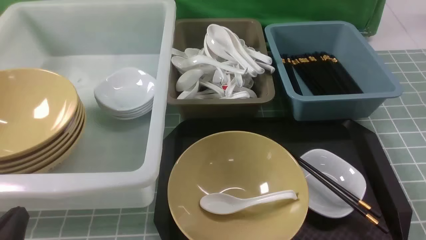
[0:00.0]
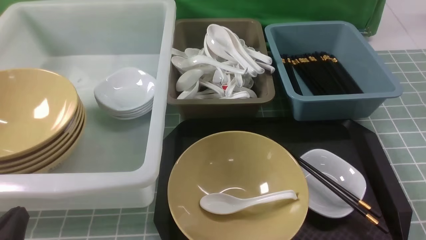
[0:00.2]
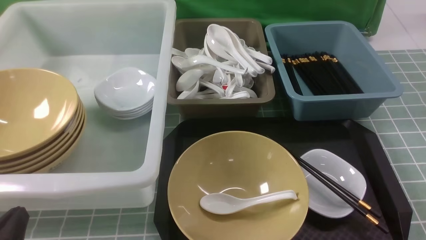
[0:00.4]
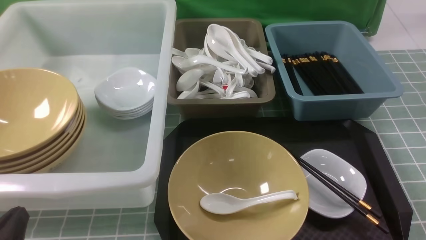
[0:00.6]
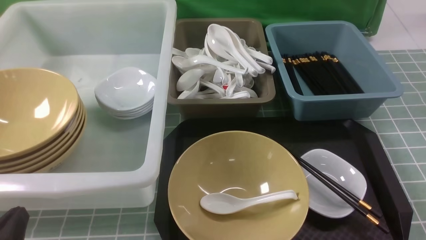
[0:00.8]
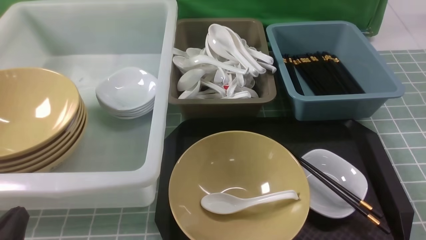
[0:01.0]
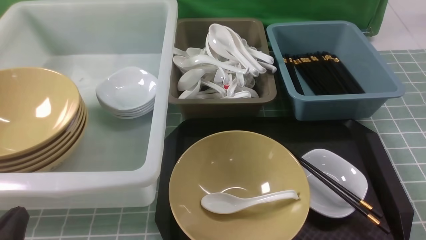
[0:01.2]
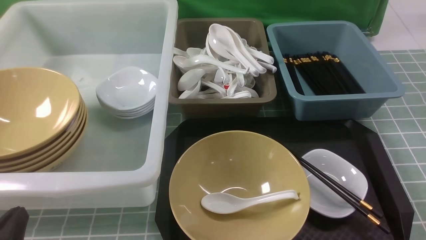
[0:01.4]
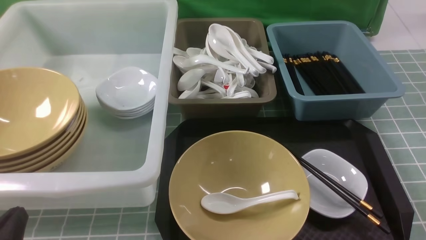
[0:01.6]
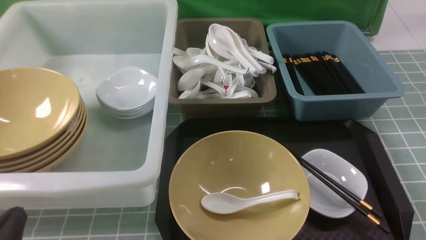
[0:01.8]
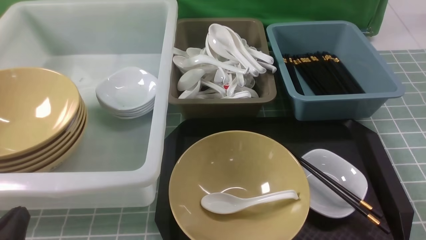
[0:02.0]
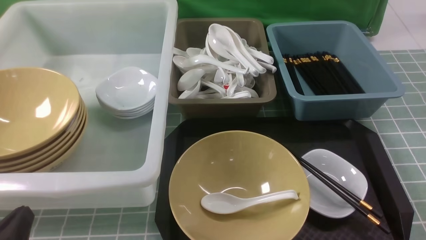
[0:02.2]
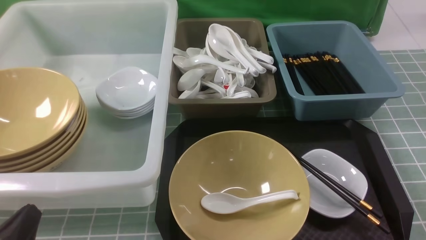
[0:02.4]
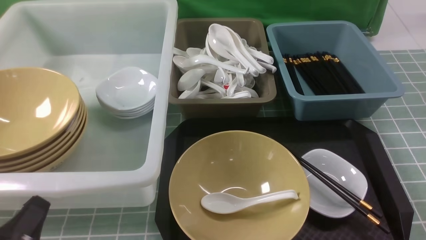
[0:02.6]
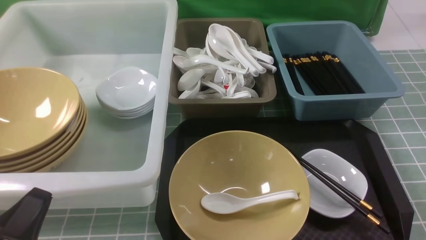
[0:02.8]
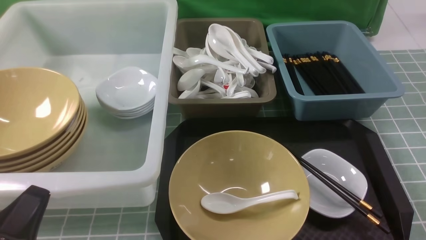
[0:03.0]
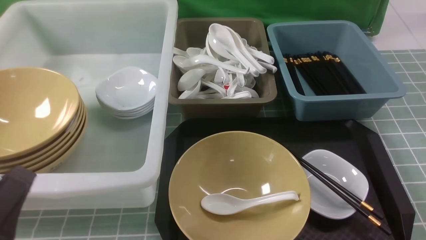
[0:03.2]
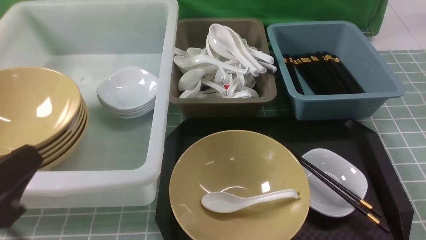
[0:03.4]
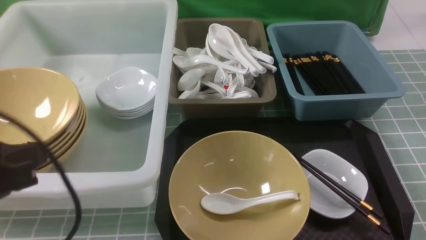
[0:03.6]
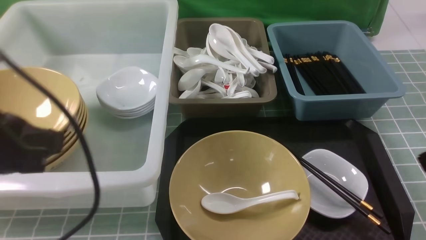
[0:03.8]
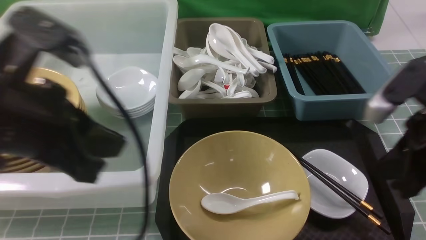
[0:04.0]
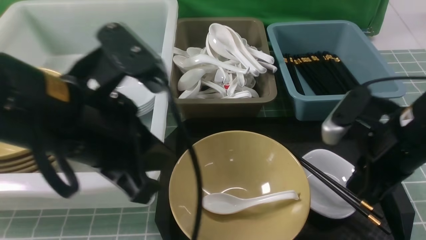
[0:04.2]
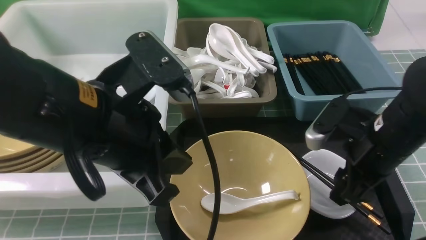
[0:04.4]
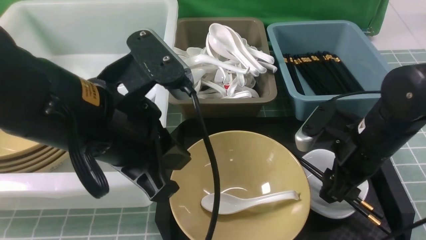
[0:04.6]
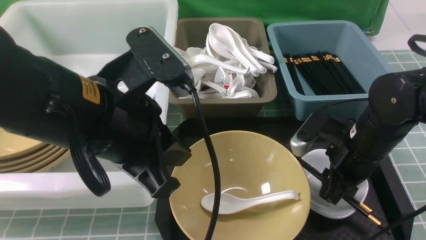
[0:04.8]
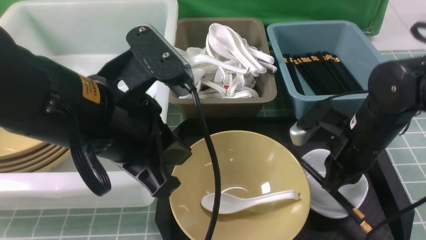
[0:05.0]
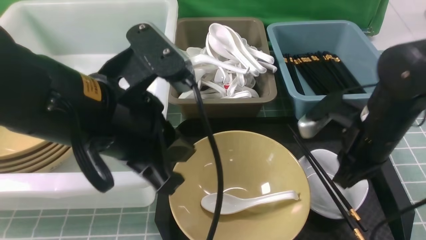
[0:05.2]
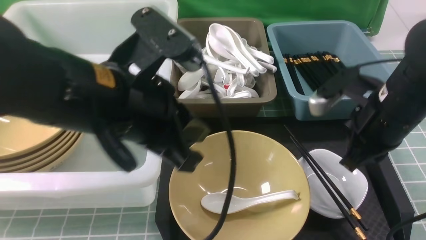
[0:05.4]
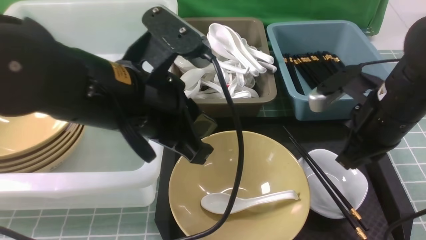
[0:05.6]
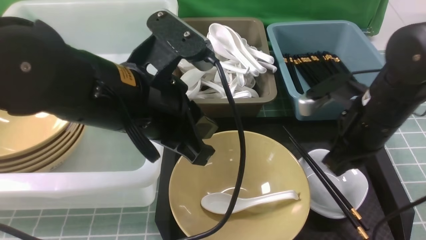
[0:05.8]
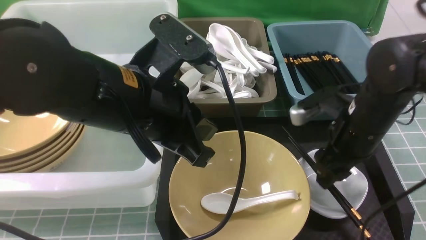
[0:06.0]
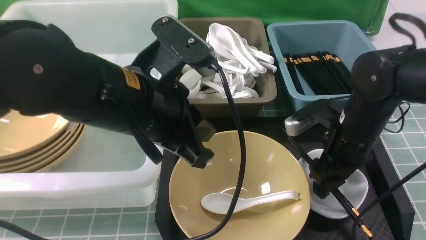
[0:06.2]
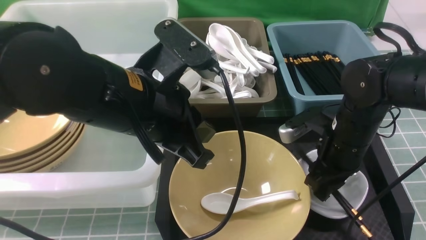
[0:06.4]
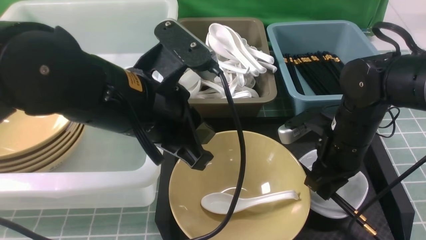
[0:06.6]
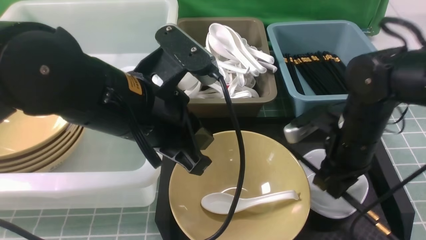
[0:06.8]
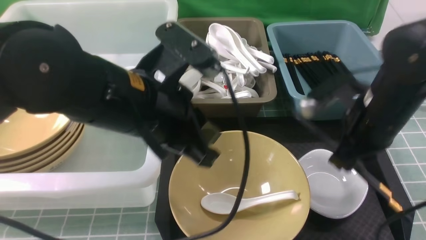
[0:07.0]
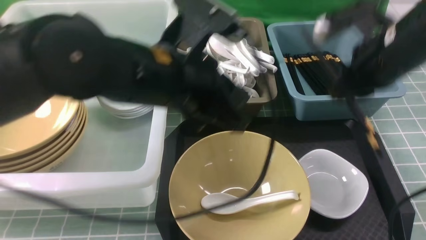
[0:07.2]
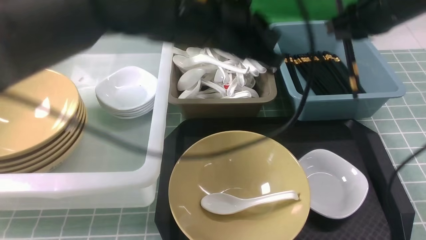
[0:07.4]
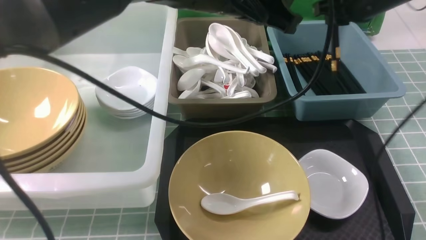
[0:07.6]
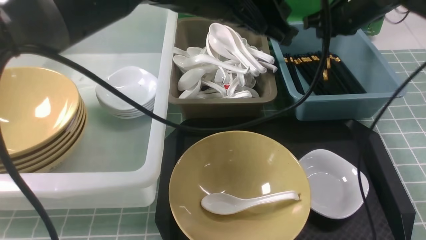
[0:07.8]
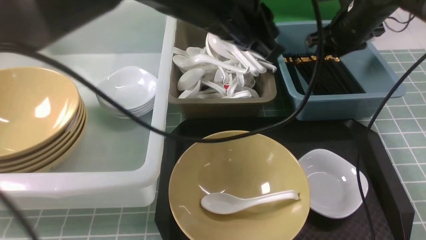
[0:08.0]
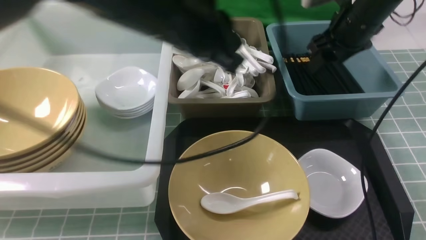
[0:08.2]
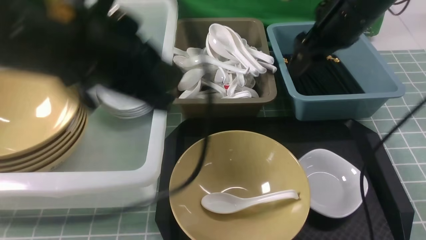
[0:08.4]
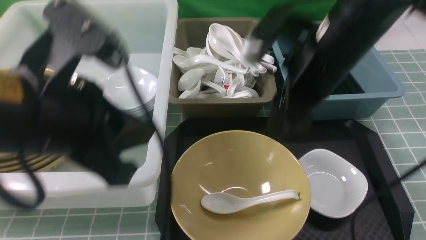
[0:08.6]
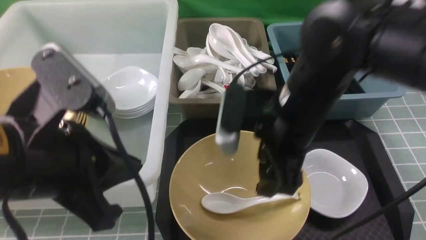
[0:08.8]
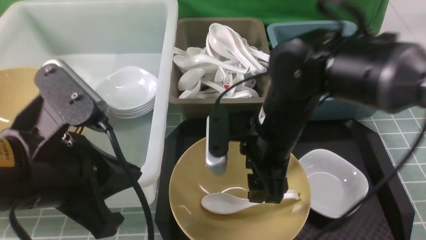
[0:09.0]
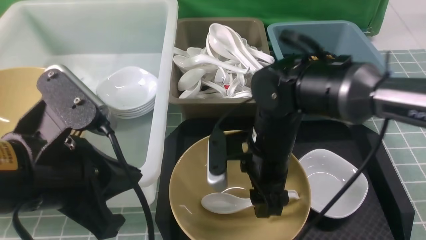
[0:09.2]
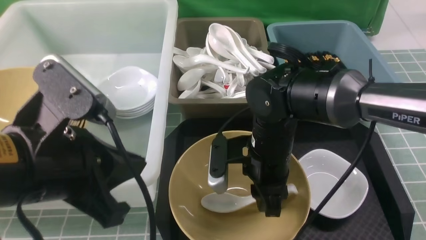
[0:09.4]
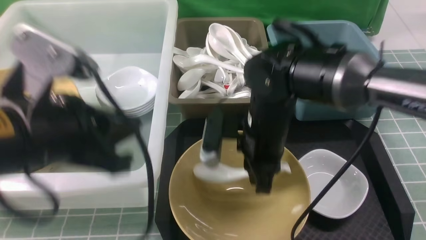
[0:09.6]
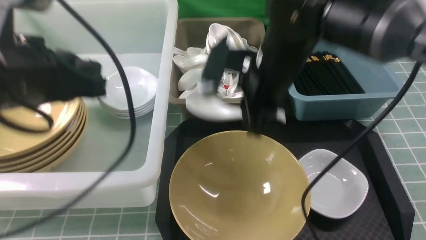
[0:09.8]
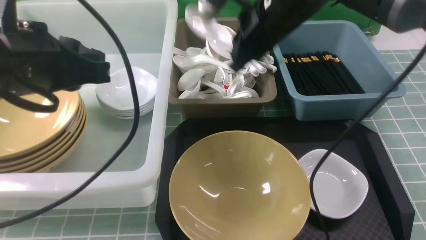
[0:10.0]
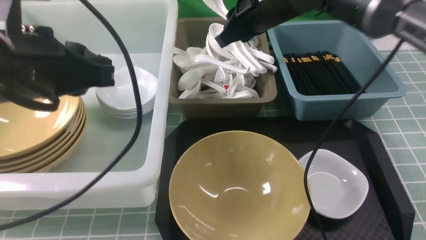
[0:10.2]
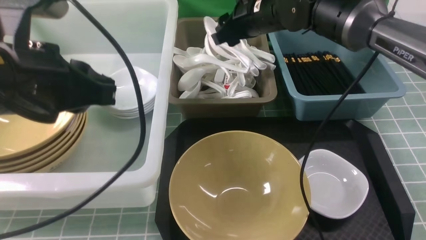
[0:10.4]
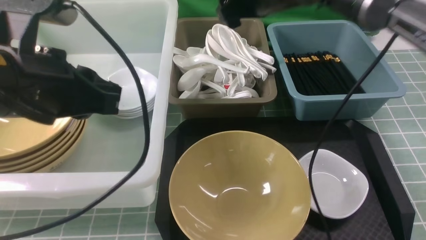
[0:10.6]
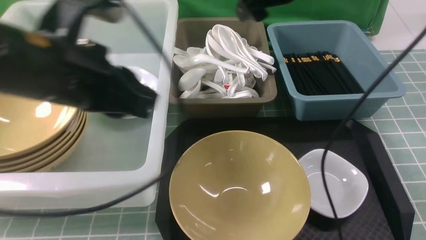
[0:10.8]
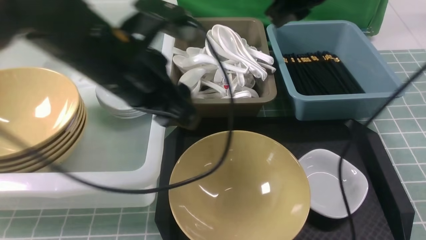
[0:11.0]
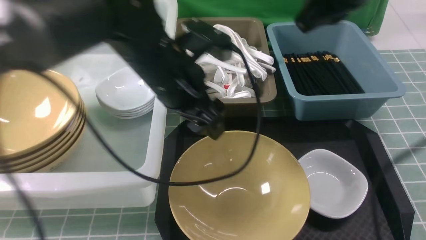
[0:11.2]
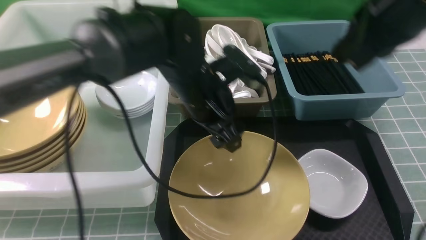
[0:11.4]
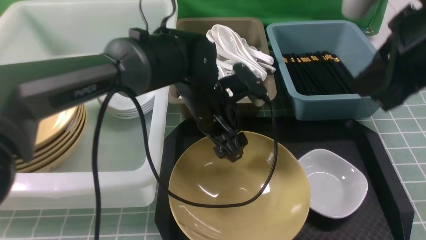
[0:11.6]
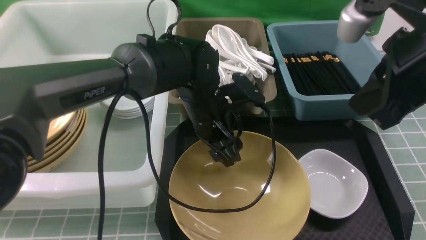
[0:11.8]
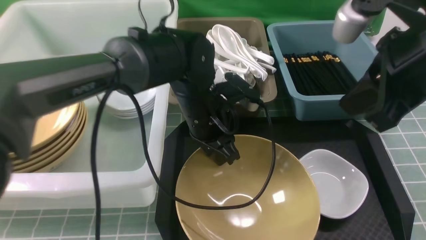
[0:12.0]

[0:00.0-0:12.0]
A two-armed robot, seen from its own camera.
Task of the whole recording: on blue table put chopsticks spoon bowls plates into blue grey white boxes.
Step, 0:00.0 to 0:07.0: use the right arm to grab the chopsticks.
Step, 0:07.2 to 0:08.2: use the right arm to put the chopsticks into the small storage box on the right.
Step, 0:08.4 to 0:09.6: use the right arm to grab the soup spoon in the middle.
Step, 0:09.8 to 0:10.6: use the right arm to put the soup spoon into the small storage box in the middle.
0:00.0 to 0:01.6: Both grippers stay about where they are.
0:03.0 to 0:04.4: The right gripper heads forward and to the left, covering roughly 25 cm, and opens up; the left gripper moves upward, to the right and forward, approximately 20 cm.
0:04.4 to 0:06.0: The right gripper closes, then reopens.
0:06.0 to 0:07.6: The right gripper travels forward and upward by about 20 cm, and closes up. Meanwhile the left gripper is displaced forward, to the right and upward by some 15 cm.
0:07.6 to 0:09.0: The left gripper moves backward and to the left, about 25 cm. Meanwhile the right gripper travels backward, to the left and downward by some 25 cm, and opens its fingers.
0:09.0 to 0:10.4: The left gripper travels forward by approximately 5 cm. The right gripper travels forward and upward by about 20 cm, and closes, then reopens.
0:10.4 to 0:12.0: The left gripper shifts about 25 cm to the right, downward and forward, and opens, then closes again, while the right gripper goes about 25 cm backward and to the right, and closes its fingers.

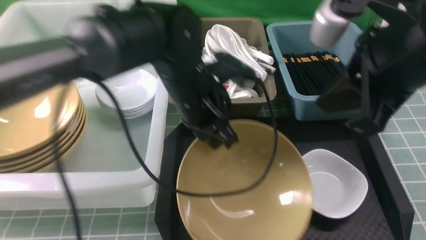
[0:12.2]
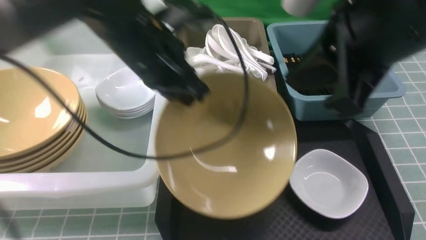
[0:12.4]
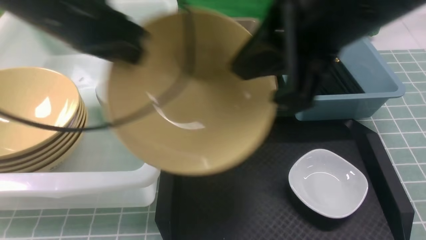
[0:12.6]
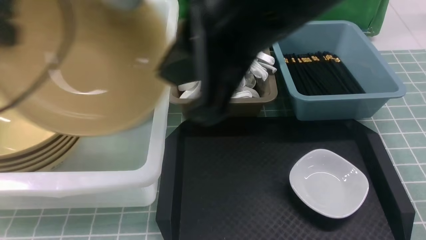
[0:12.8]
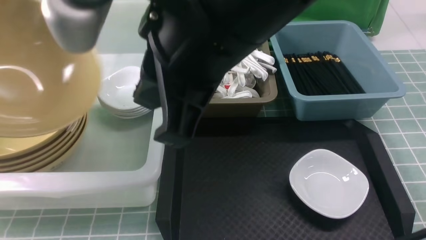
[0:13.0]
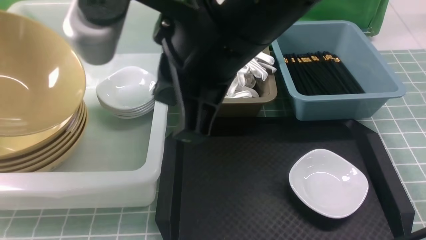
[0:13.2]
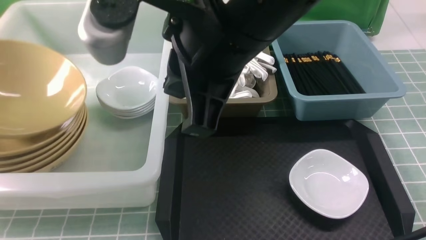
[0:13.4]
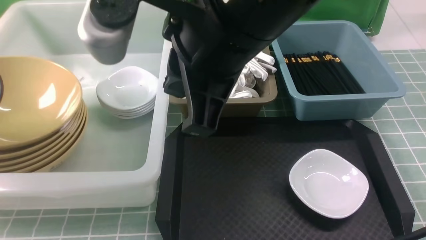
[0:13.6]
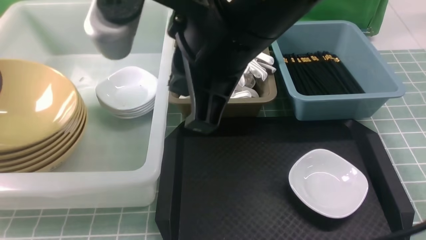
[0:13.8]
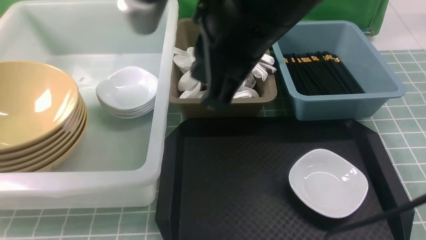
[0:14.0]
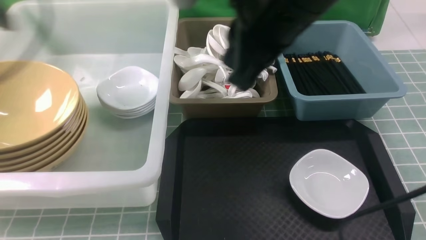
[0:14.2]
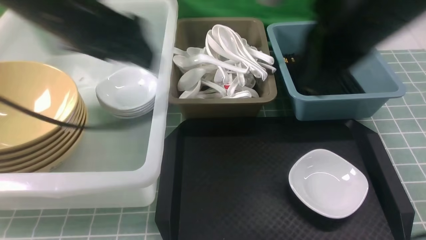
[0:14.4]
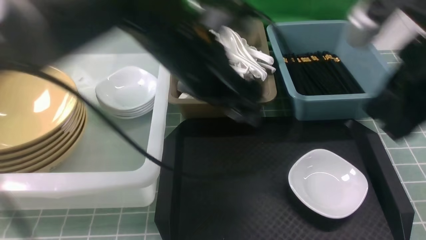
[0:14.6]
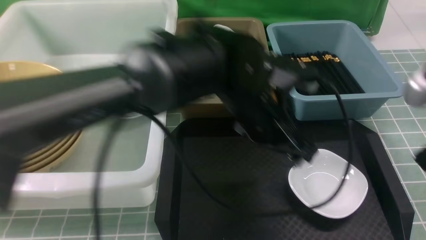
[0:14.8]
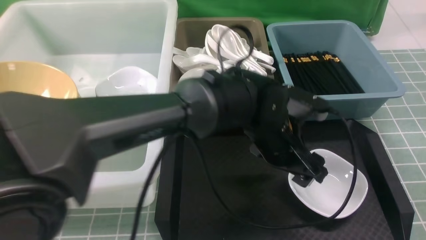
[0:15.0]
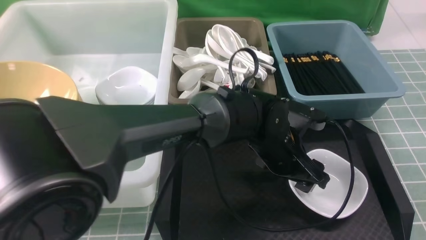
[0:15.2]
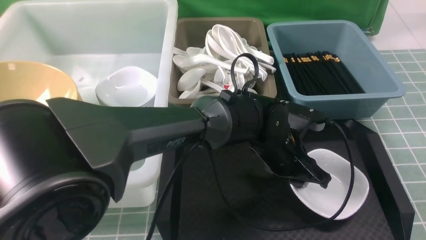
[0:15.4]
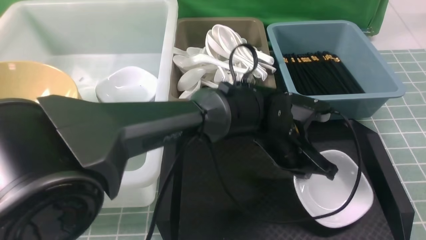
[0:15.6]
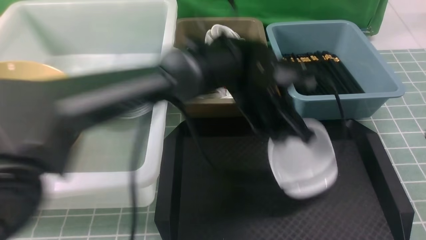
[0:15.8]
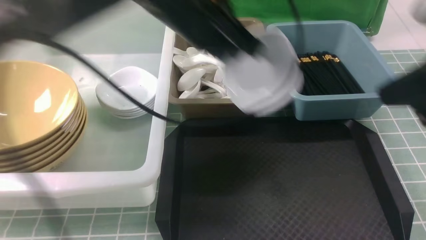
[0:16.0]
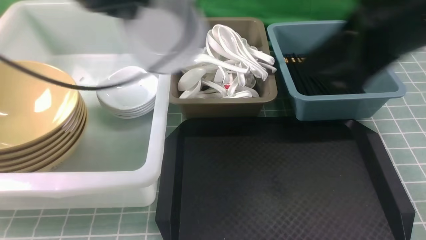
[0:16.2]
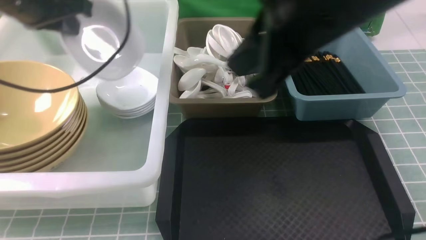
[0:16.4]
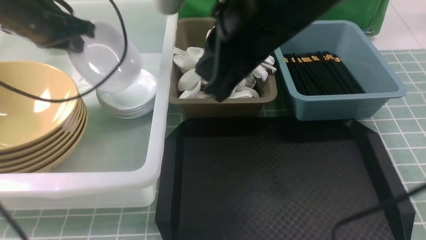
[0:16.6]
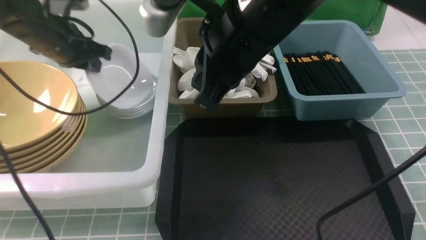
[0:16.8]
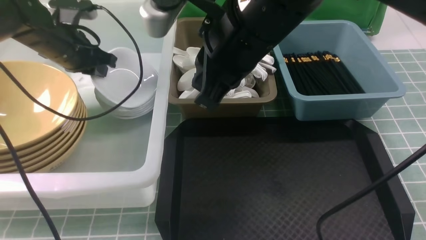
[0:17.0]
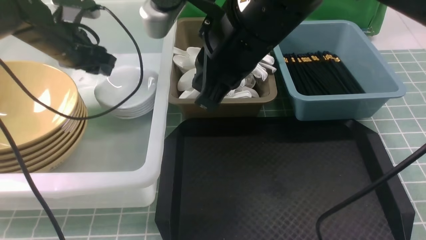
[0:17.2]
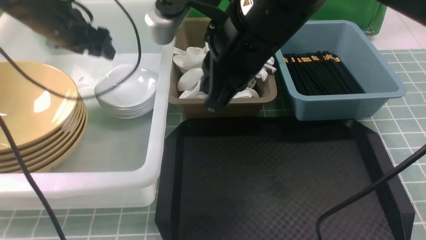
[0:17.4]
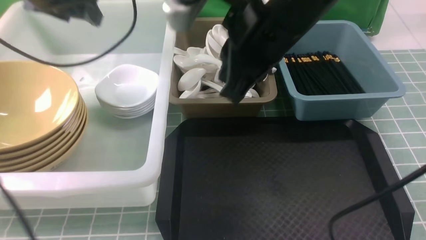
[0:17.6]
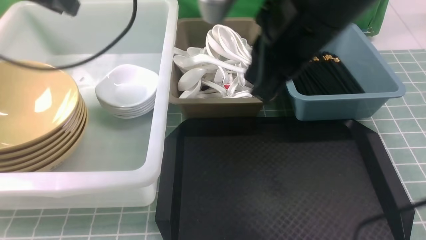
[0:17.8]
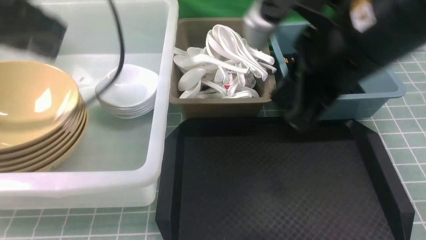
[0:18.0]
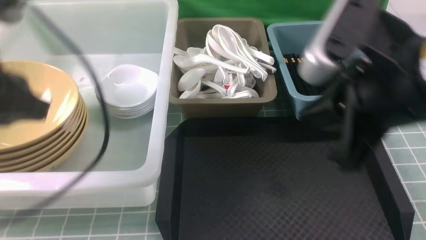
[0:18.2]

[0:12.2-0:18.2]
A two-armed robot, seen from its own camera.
Task of the whole recording: on blue table put chopsticks spoon bowls plates into blue grey white boxes.
Step, 0:12.4 to 0:14.2: use the left arm to put the noodle bowl into the large storage box on the left.
Step, 0:14.4 to 0:15.8: use the left arm to grab the plate.
Step, 0:16.0 to 0:17.4: use the left arm to put the plate into the large storage box on the left.
0:12.2 to 0:13.8: The right gripper heads to the left, covering roughly 15 cm. Meanwhile the left gripper travels to the left by approximately 35 cm, and opens.
0:13.8 to 0:15.2: The right gripper shifts approximately 25 cm to the right. The left gripper heads to the right, covering about 50 cm.
0:15.2 to 0:16.6: The right gripper heads to the left and forward, covering roughly 25 cm; the left gripper is displaced to the left by roughly 35 cm, and closes up.
0:16.6 to 0:18.2: The right gripper is displaced to the right and backward by about 15 cm. Meanwhile the left gripper is displaced backward by some 25 cm, and opens and closes again.
